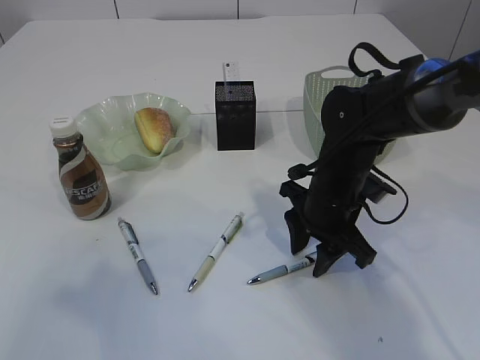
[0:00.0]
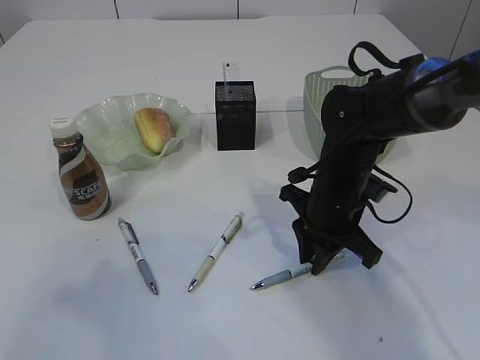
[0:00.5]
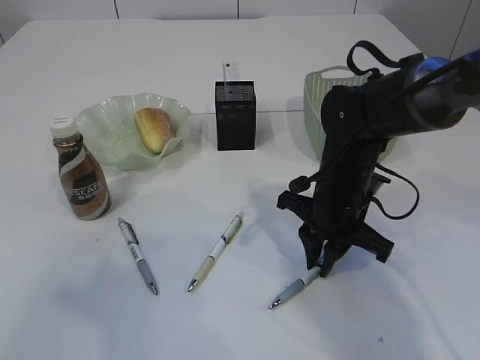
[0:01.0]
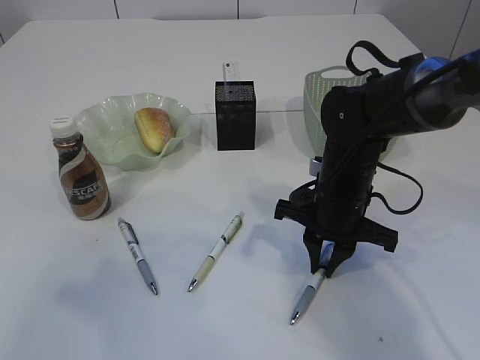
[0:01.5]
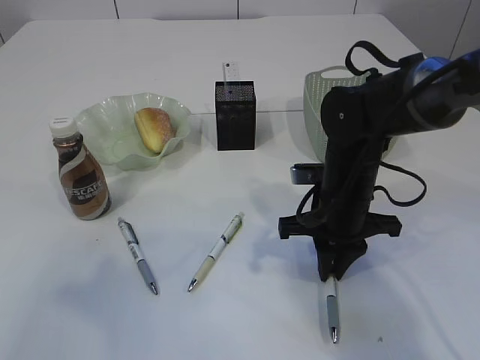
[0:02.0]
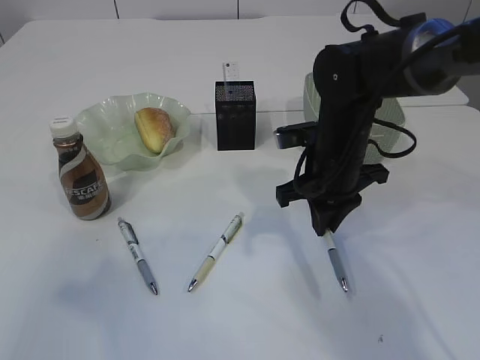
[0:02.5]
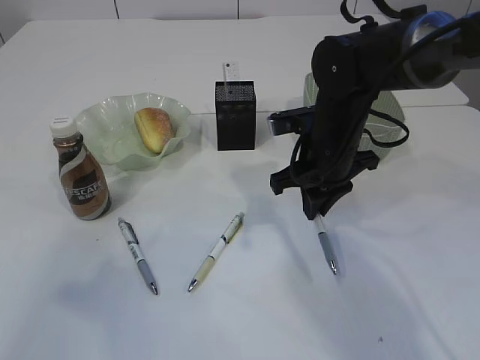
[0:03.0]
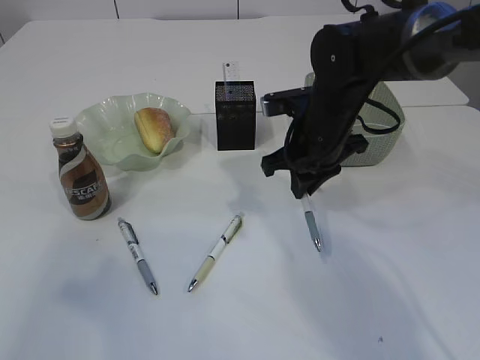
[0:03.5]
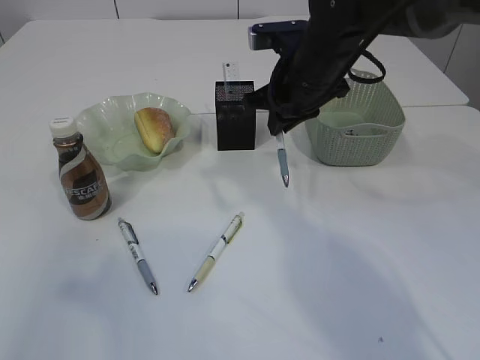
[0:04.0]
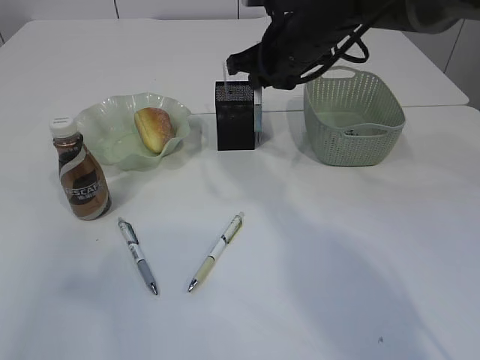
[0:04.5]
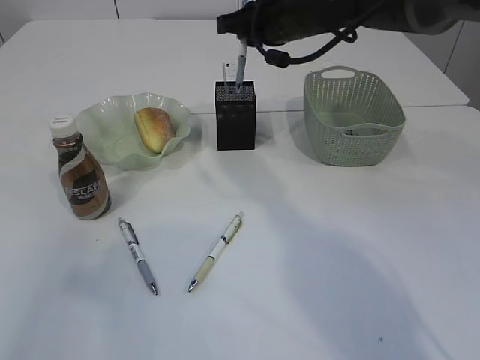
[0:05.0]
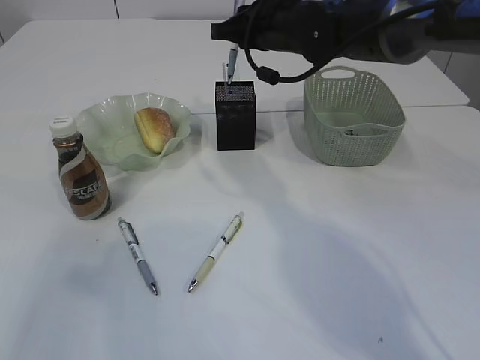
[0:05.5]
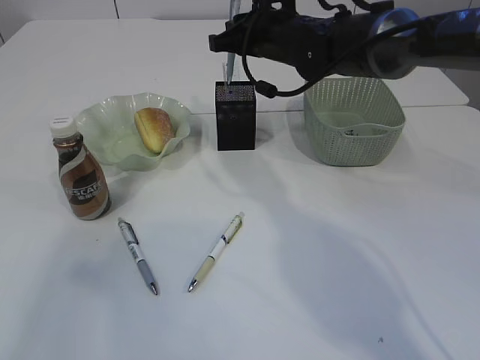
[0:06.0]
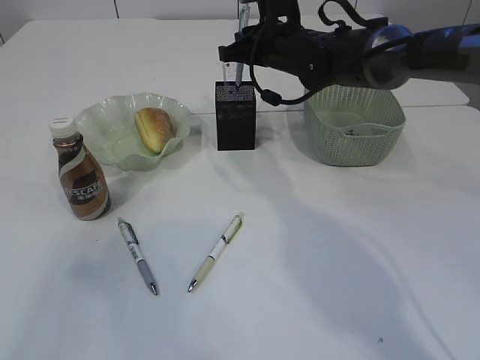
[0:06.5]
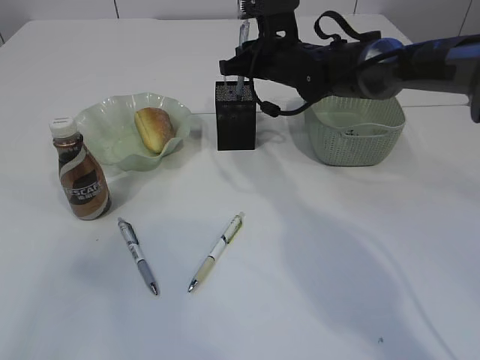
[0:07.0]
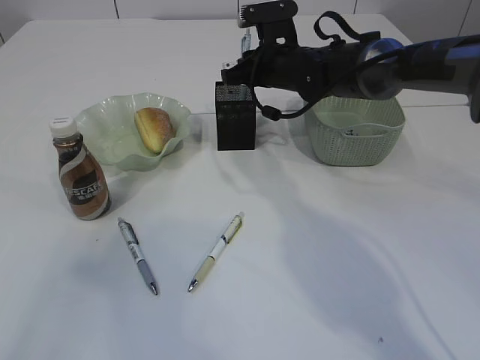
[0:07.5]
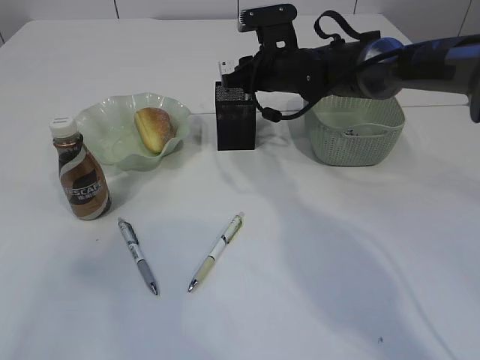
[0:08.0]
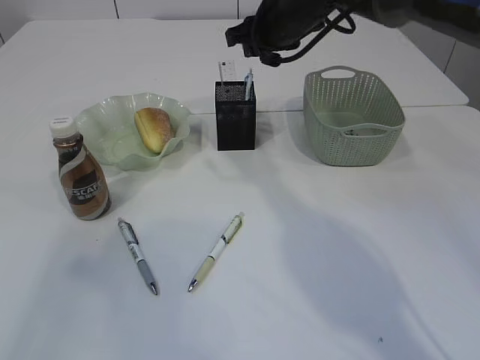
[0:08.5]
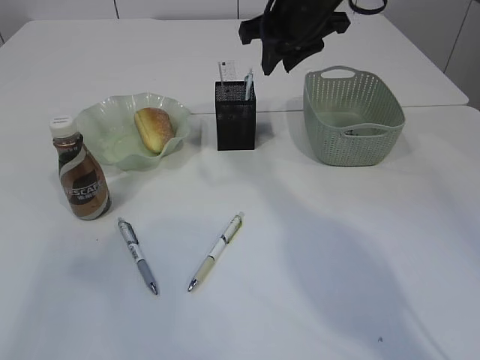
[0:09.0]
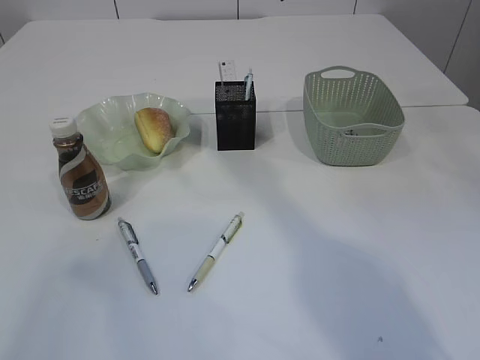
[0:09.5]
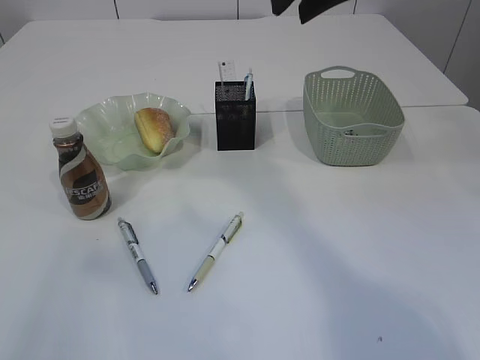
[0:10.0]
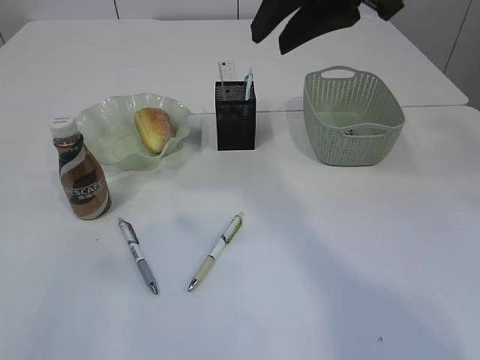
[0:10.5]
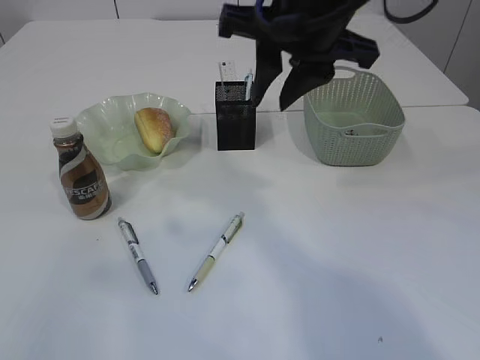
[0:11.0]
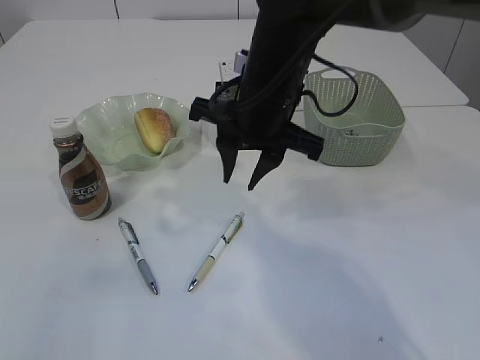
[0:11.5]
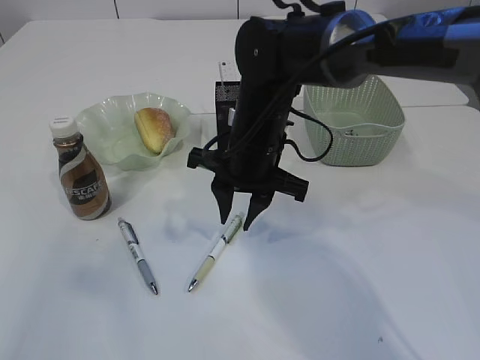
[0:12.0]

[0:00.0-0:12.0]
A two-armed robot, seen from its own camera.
Step, 0.0 to 3.5 s: Pick up the pen with right arm.
Step, 4.0 to 8.5 s: Place the pen into the pen holder.
0.0 to 2.0 s: The right gripper closes.
2.0 to 4.0 s: The right gripper heads upward and forward, covering some 15 cm.
4.0 to 6.0 s: The right gripper travels forward by roughly 5 cm.
6.0 to 8.0 s: The right gripper travels downward by approximately 5 cm, and opens up.
8.0 to 10.0 s: The right gripper goes some 30 cm upward and backward.
10.0 to 12.0 s: The right gripper shifts approximately 25 cm downward and to the left.

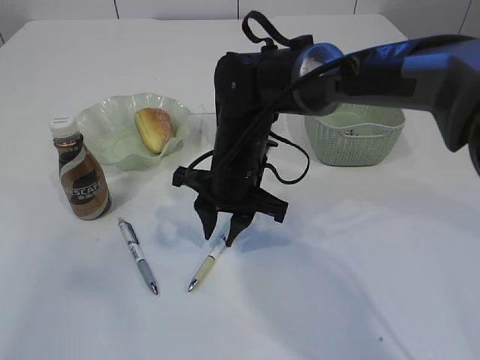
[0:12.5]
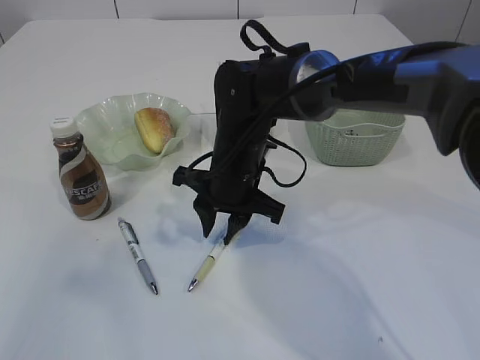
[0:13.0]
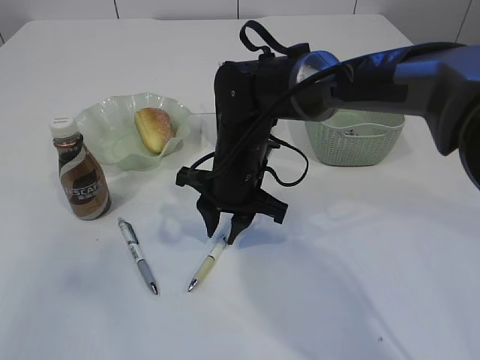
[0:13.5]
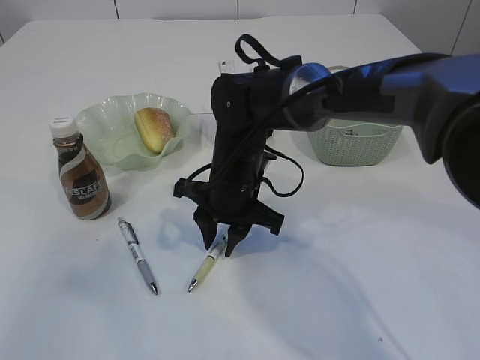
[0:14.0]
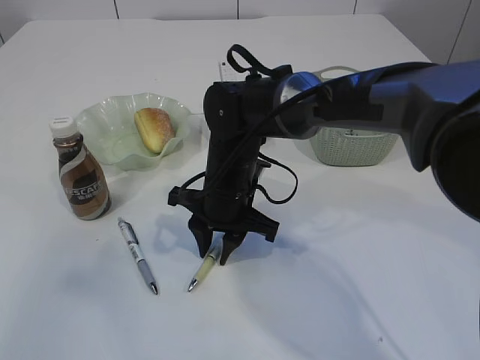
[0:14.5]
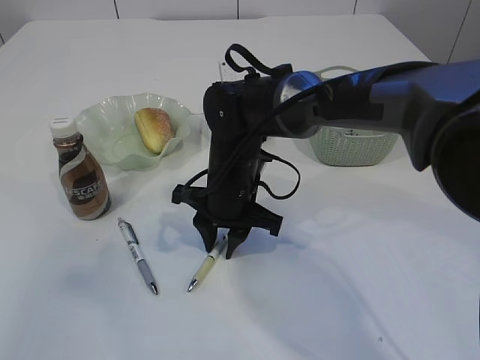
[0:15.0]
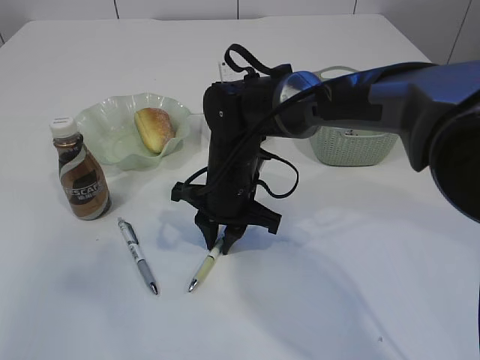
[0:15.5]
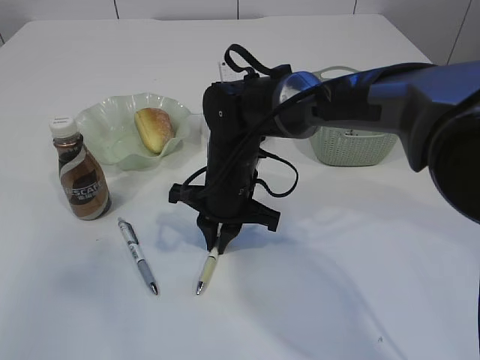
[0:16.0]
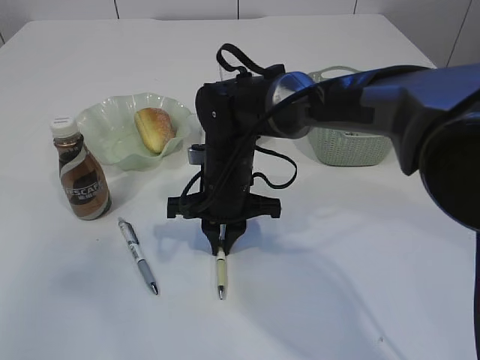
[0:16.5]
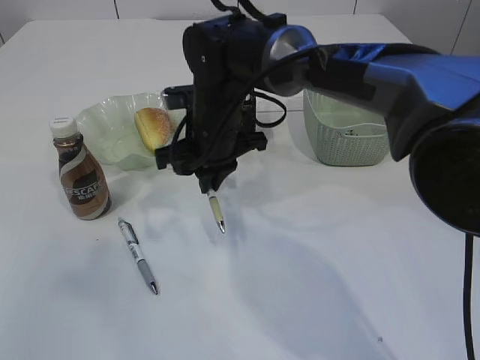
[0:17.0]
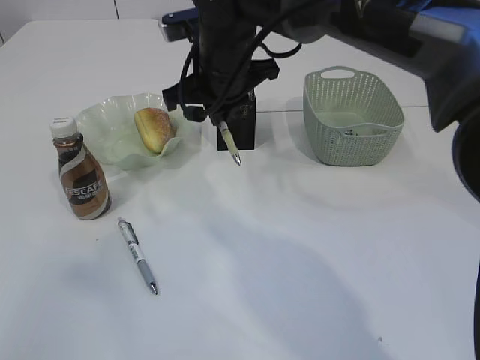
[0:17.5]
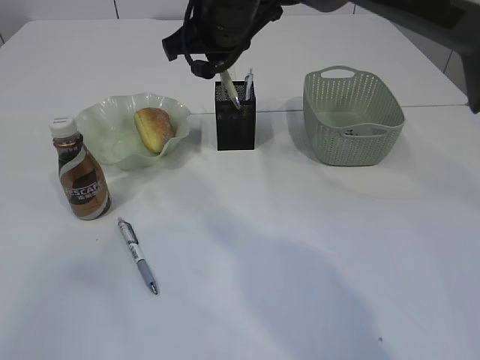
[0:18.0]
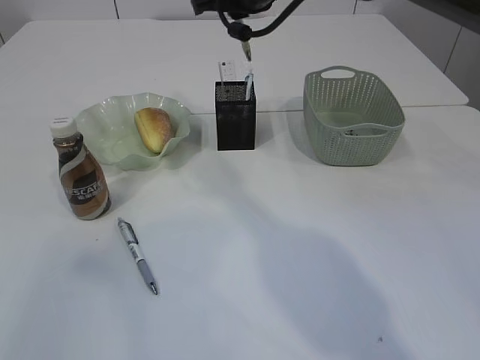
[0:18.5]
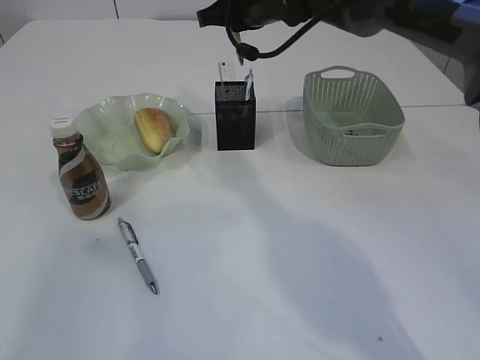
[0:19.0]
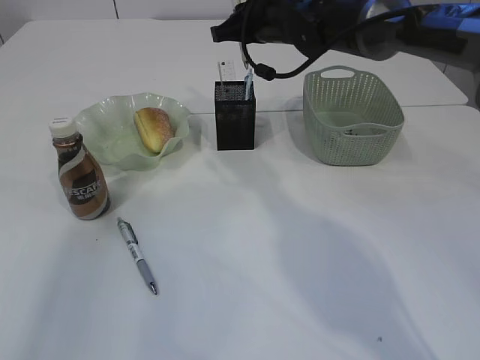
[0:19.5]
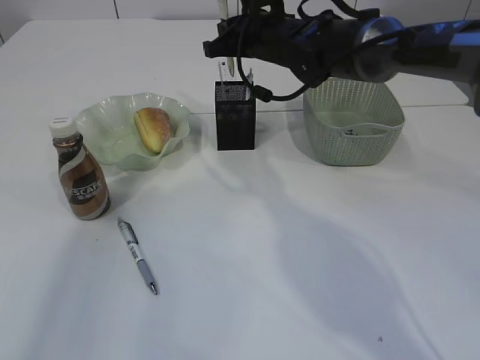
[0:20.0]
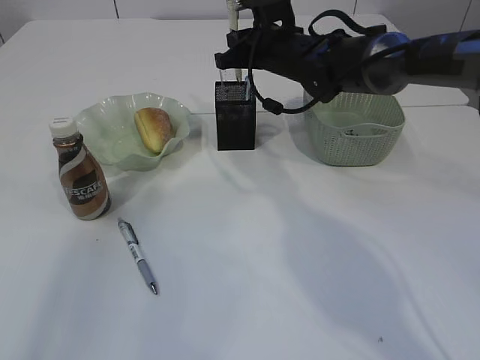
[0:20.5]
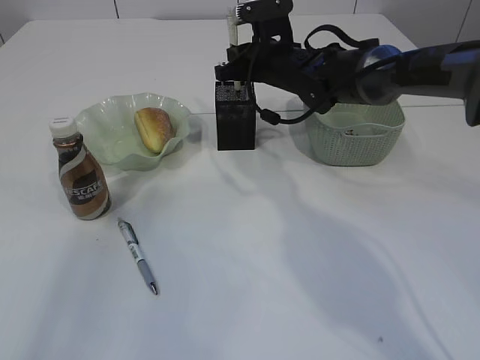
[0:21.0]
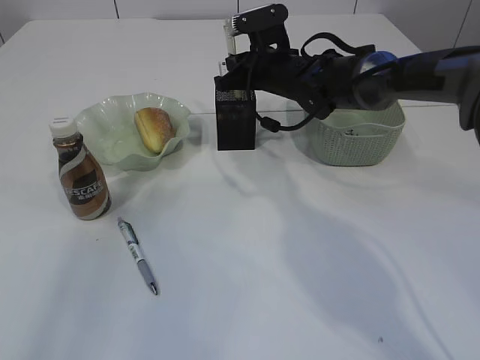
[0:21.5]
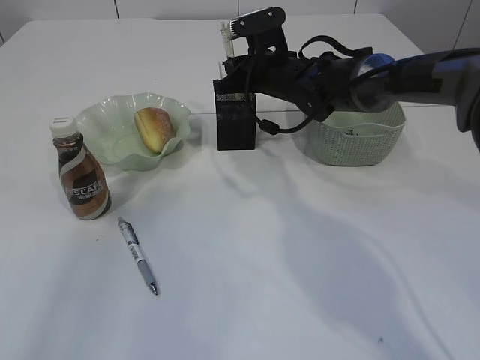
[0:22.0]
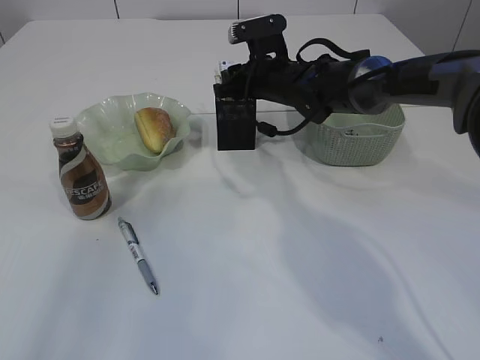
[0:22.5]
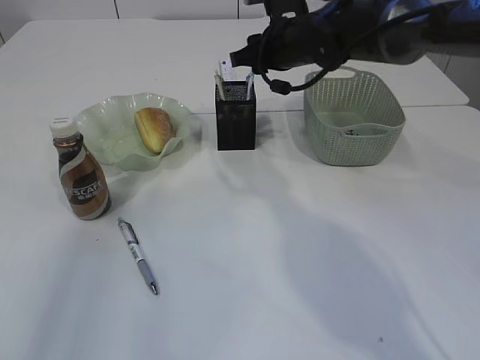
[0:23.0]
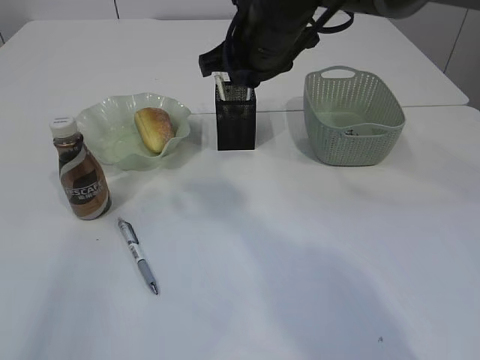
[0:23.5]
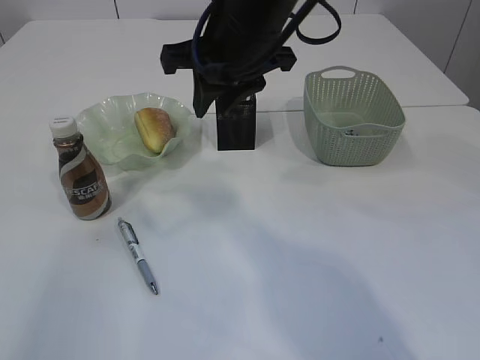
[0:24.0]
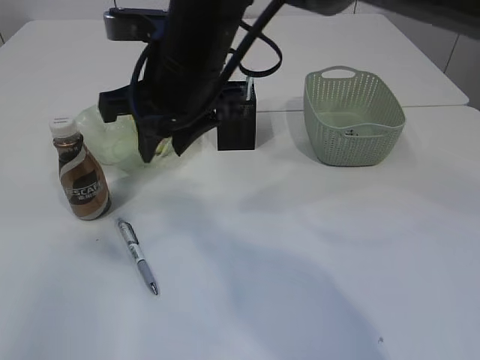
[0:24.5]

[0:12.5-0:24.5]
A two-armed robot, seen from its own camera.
Step, 12.5 to 17.0 s: Pick up the pen with right arm.
Step, 17.5 to 23.0 s: Place the pen into the pen holder.
12.5 to 14.5 s: The grippers stay close to where they were, moving slightly.
14.5 to 16.5 s: The right gripper closes.
16.5 to 18.5 s: The right gripper travels upward and forward by some 20 cm.
18.5 to 20.5 s: The right gripper shifts some 10 cm downward; the left gripper heads forward, covering about 5 cm.
20.5 to 22.5 s: The right gripper opens up.
22.5 to 24.5 s: The right gripper is displaced backward, upward and to the left by approximately 25 cm.

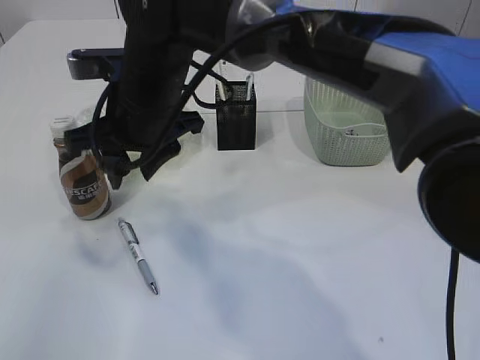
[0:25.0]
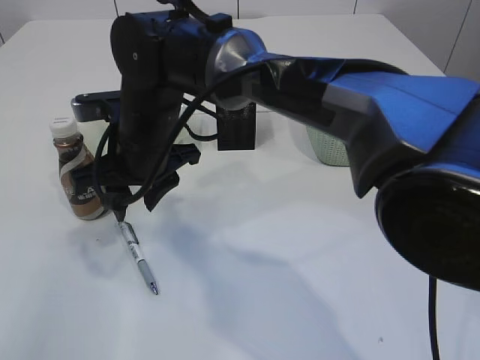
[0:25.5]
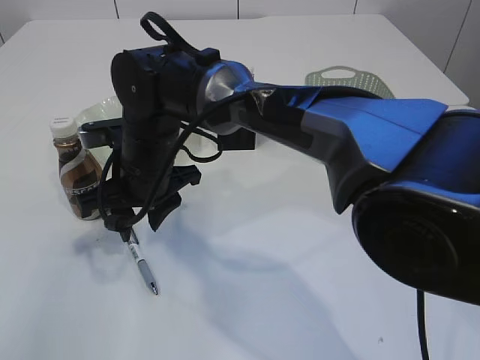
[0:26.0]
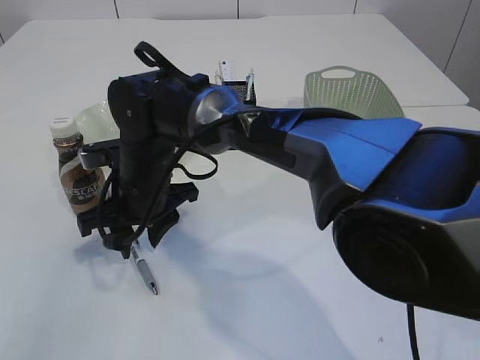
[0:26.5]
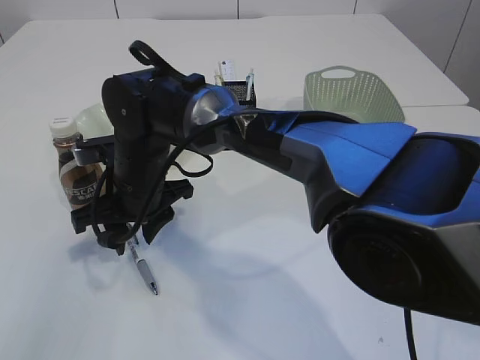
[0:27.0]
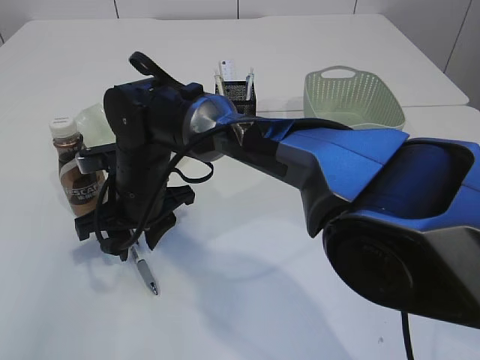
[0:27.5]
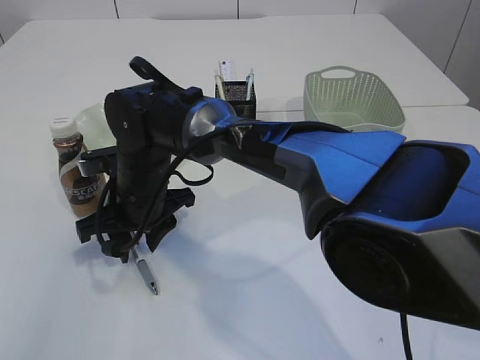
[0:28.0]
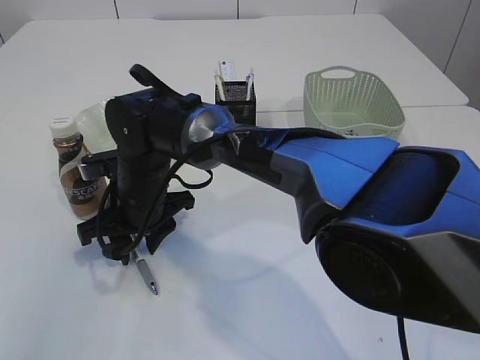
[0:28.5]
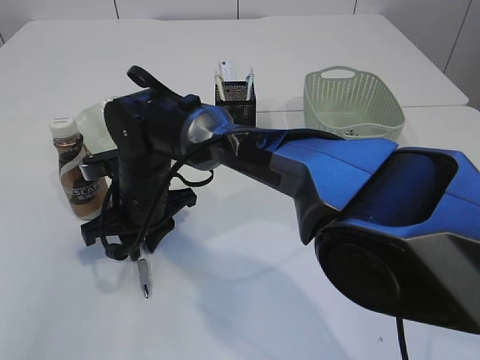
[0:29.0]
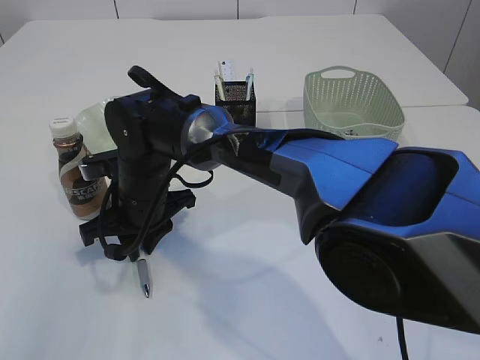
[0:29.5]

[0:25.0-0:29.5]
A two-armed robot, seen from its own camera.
25.0 to 27.0 s: The right gripper is displaced downward by roughly 10 cm.
27.0 to 29.5 s: The grippers move only a little.
